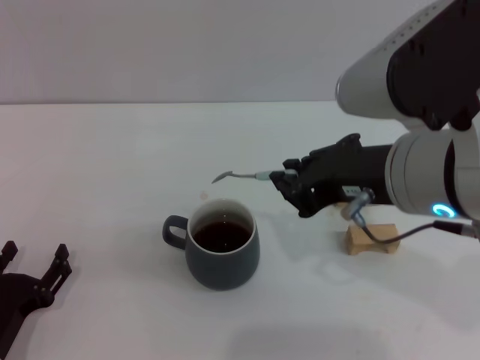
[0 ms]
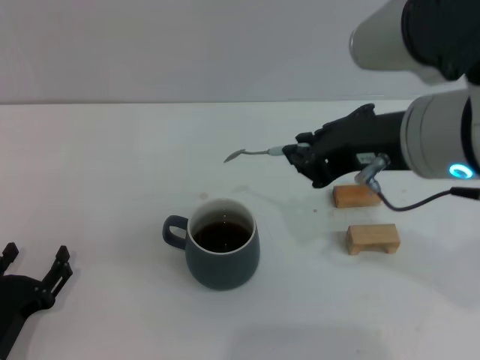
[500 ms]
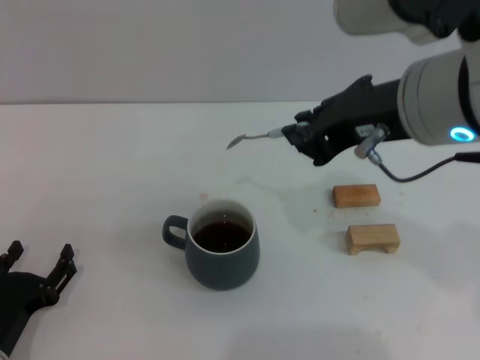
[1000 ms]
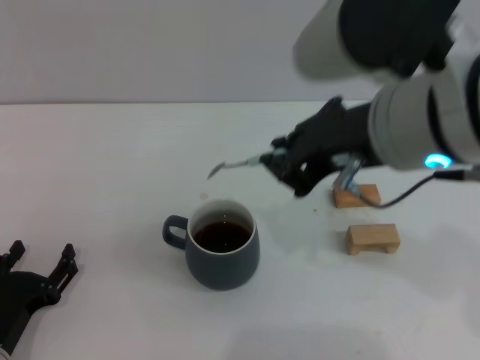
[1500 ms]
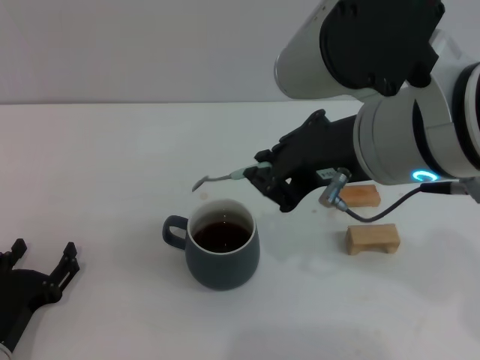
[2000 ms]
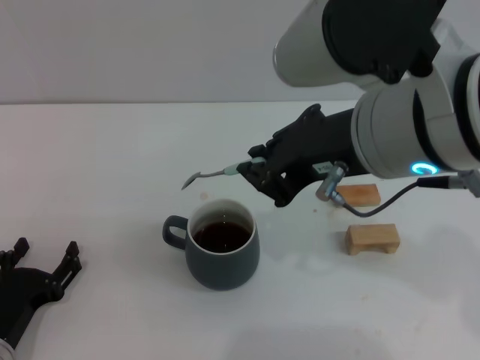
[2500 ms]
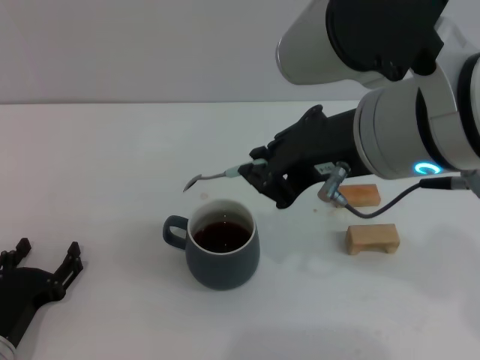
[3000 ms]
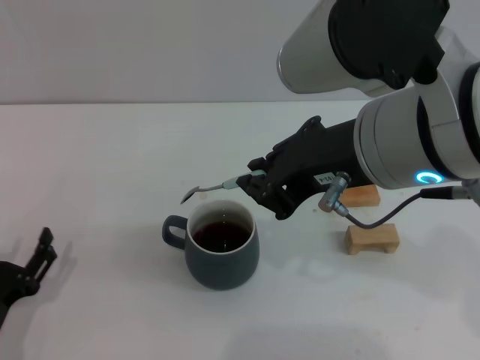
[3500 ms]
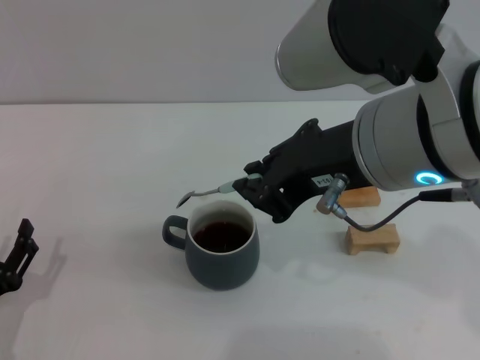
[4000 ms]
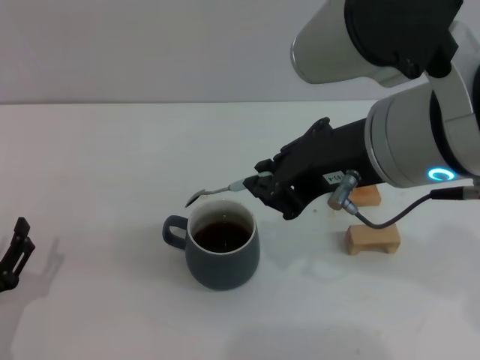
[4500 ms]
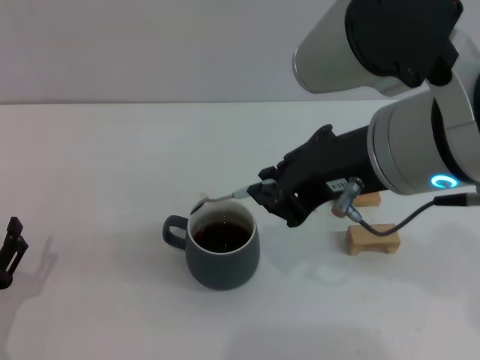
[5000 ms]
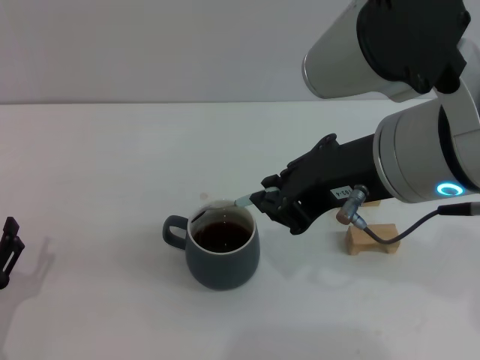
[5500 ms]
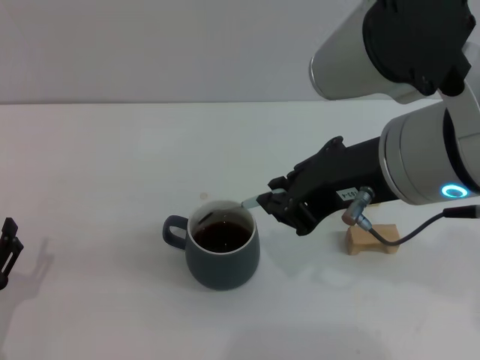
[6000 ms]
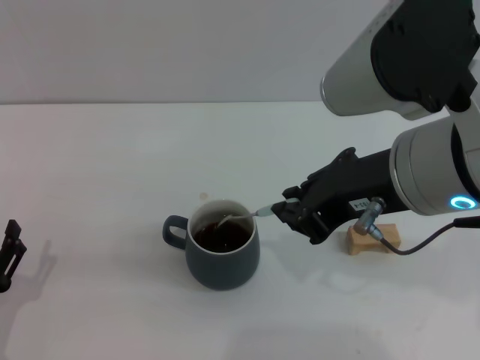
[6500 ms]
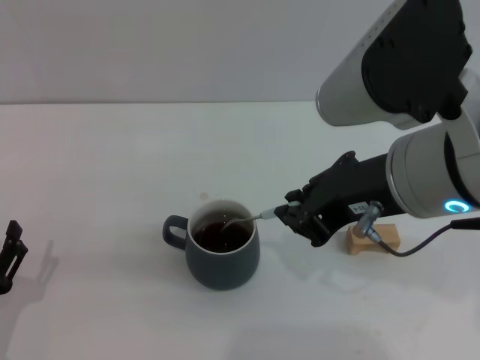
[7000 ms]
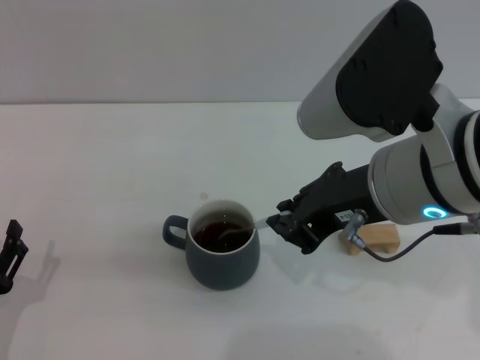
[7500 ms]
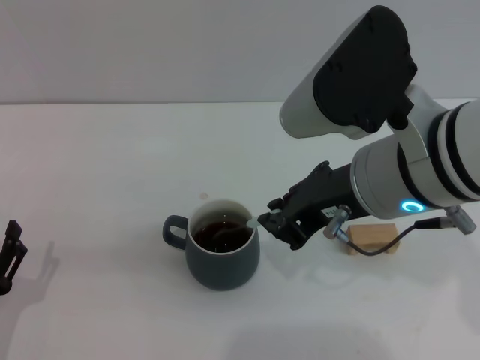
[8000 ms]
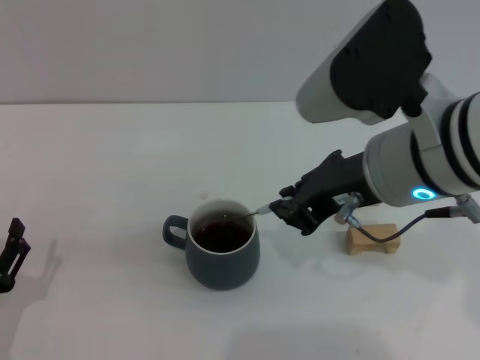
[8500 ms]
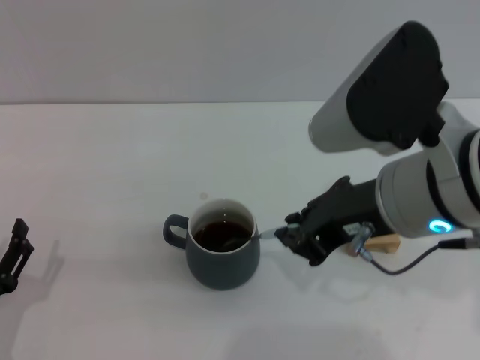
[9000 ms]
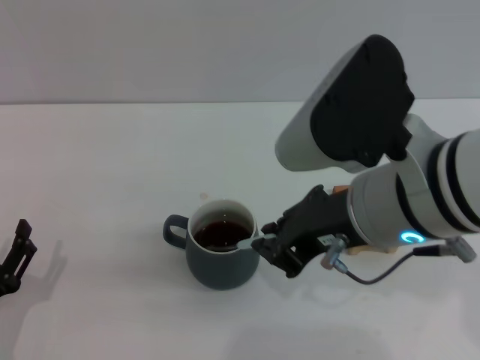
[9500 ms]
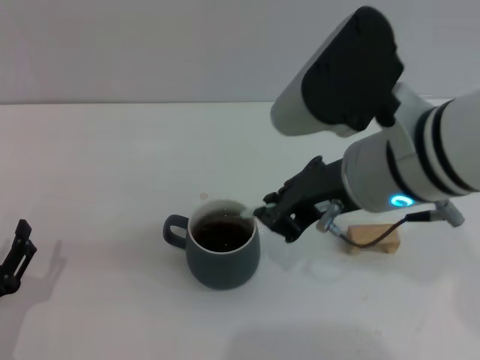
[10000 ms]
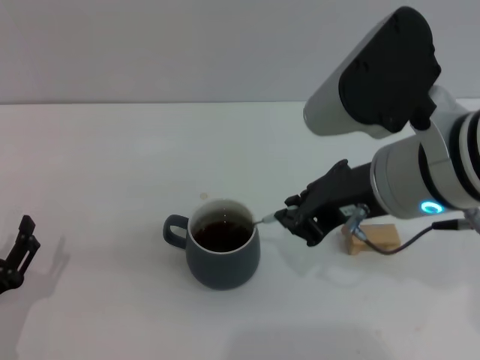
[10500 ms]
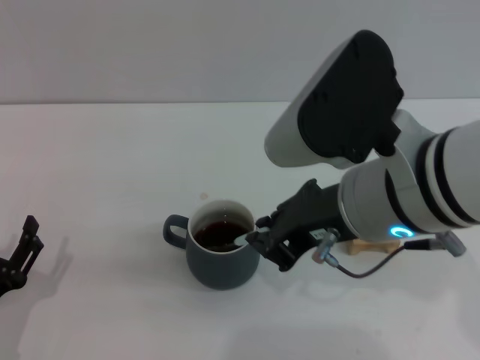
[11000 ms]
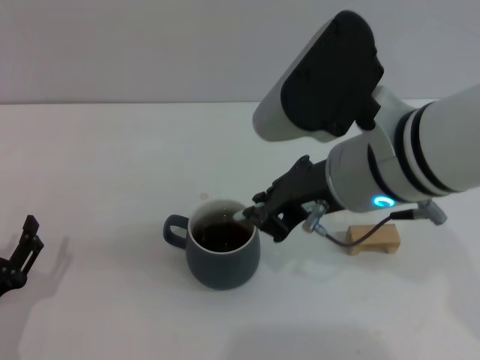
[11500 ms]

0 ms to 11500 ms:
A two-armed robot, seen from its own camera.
Task of the whole recording: Move the grey cup to the center, lift the blue spoon, stir it three times in the cup, and put the spoon into the cup.
2000 ms to 11500 ms: The grippers make only small movements.

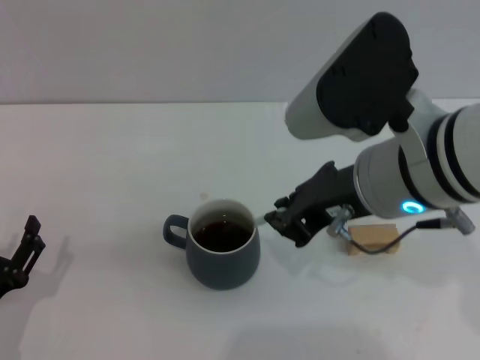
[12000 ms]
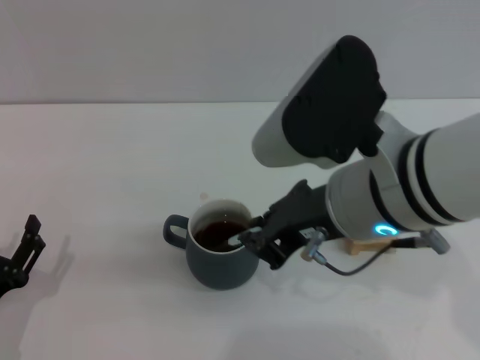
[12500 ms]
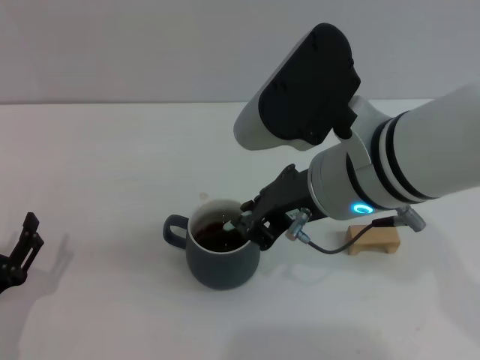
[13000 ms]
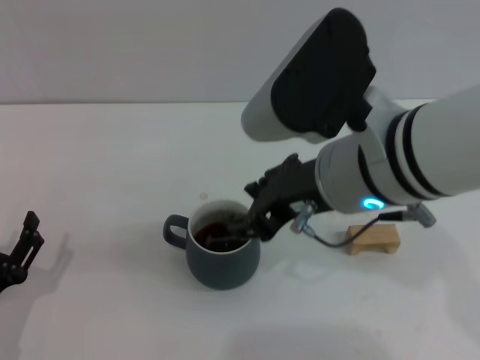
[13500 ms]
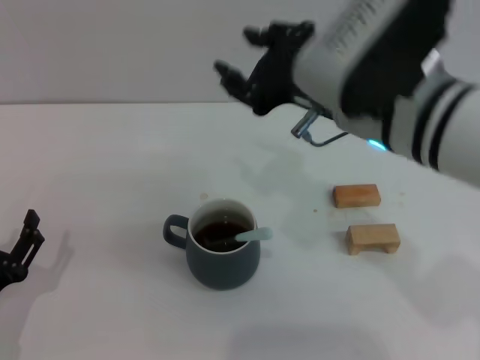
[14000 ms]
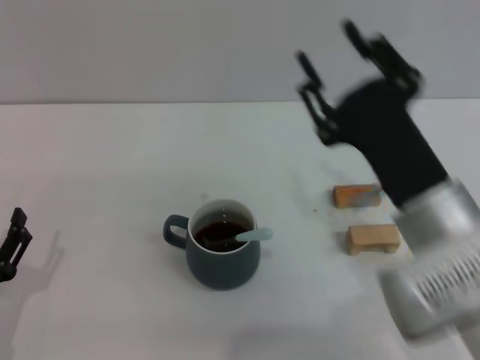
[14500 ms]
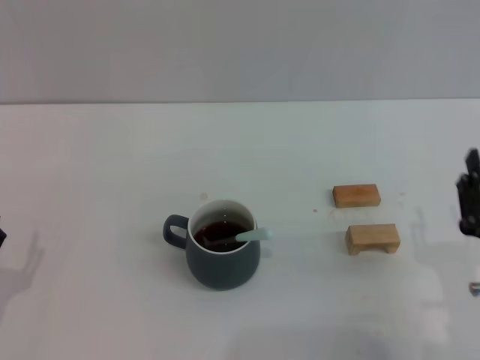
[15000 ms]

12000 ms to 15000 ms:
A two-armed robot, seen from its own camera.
Task of the whole recording: Move the grey cup to the center, lift the blue spoon, stir it three times in the cup, and put the spoon into the cup.
12000 ms to 13500 ms: The right gripper opens up.
13500 ms to 15000 ms: The right gripper goes some 25 cm downward, to the right and backward.
